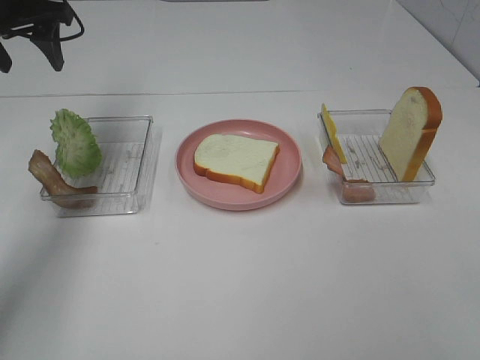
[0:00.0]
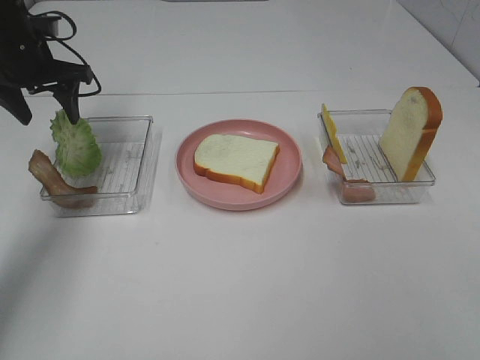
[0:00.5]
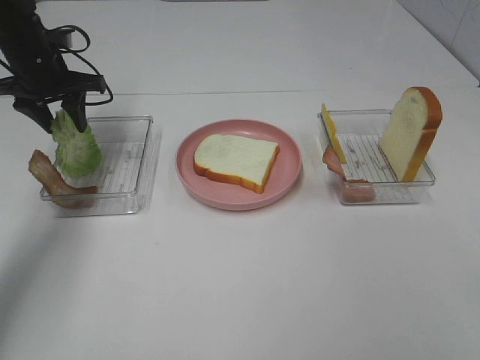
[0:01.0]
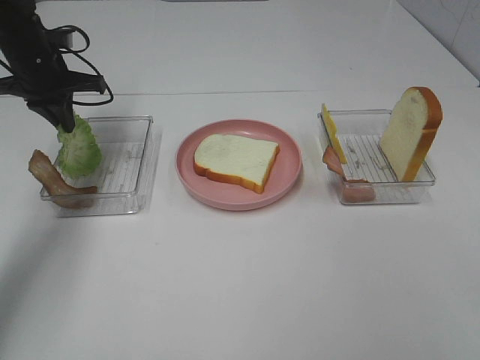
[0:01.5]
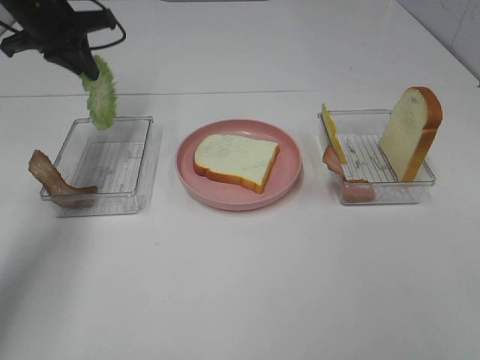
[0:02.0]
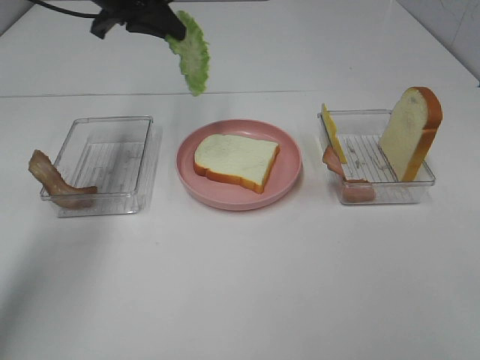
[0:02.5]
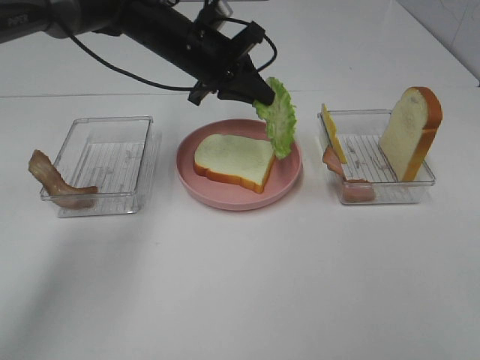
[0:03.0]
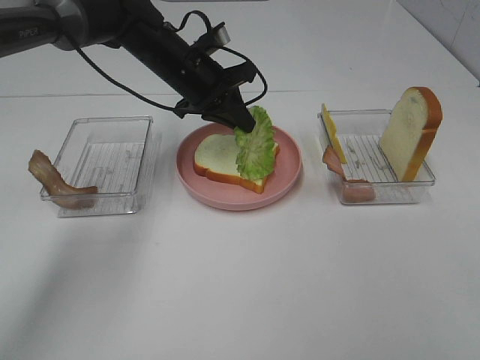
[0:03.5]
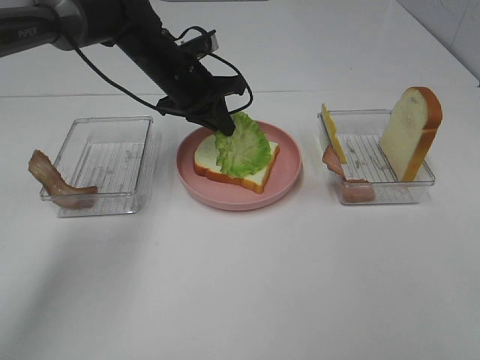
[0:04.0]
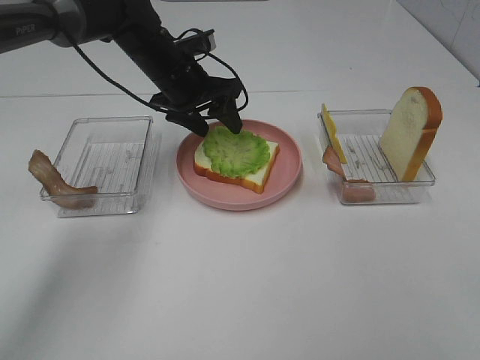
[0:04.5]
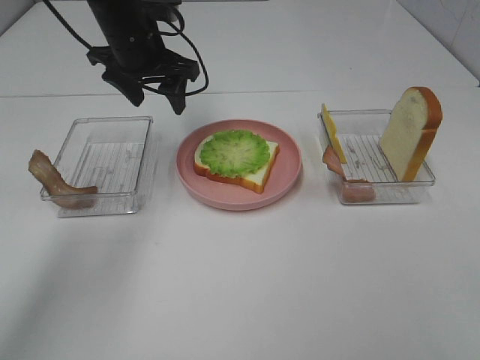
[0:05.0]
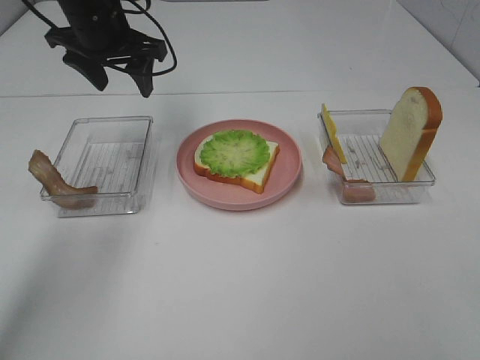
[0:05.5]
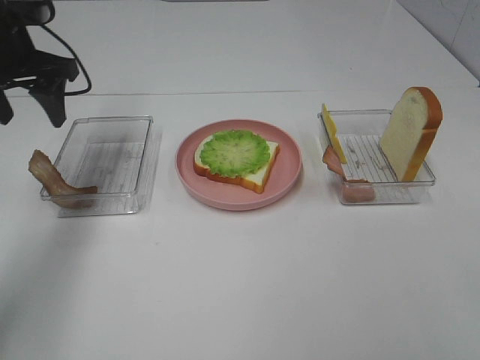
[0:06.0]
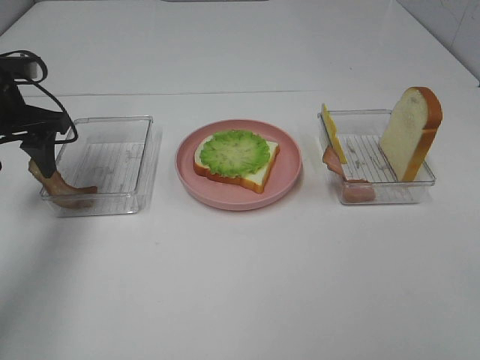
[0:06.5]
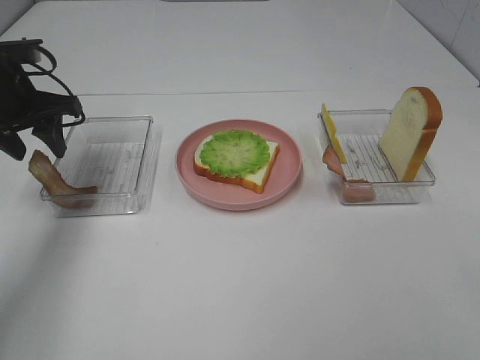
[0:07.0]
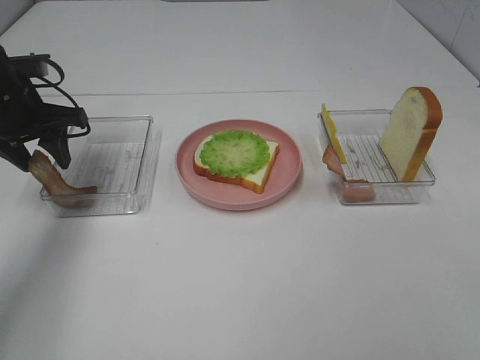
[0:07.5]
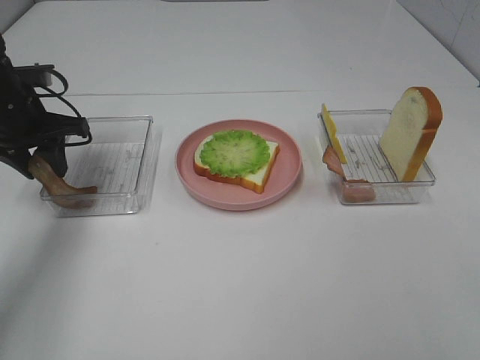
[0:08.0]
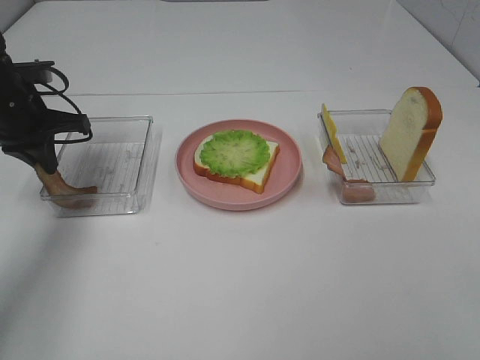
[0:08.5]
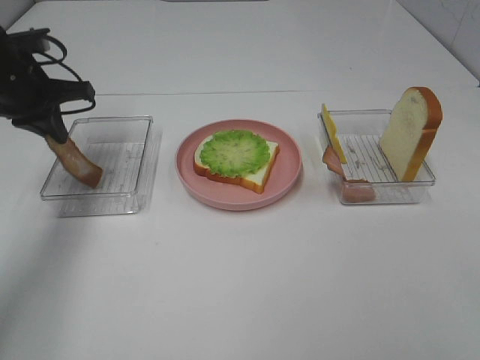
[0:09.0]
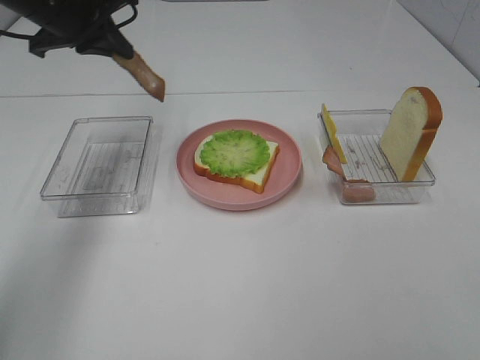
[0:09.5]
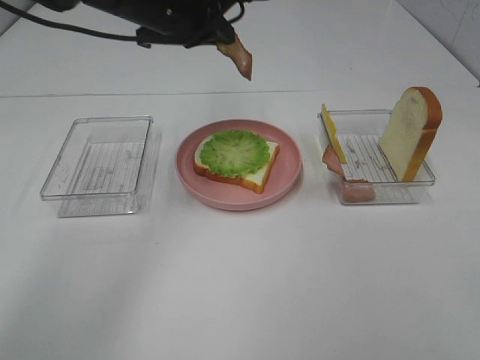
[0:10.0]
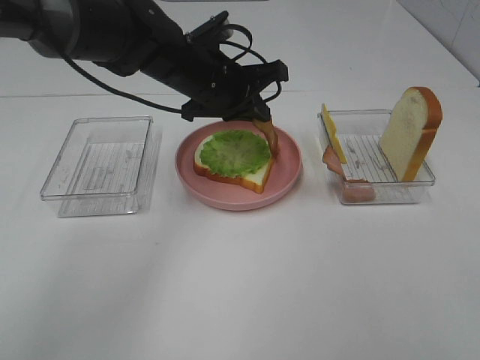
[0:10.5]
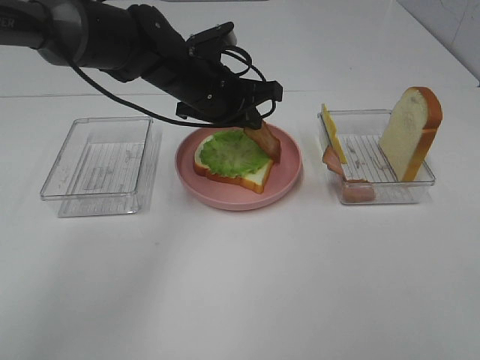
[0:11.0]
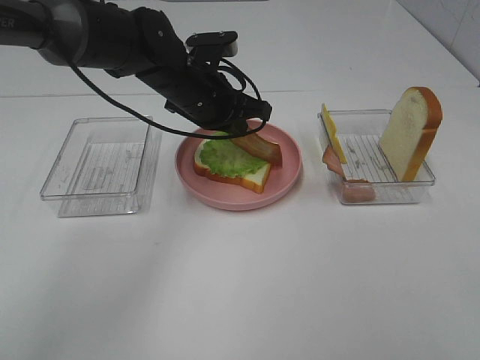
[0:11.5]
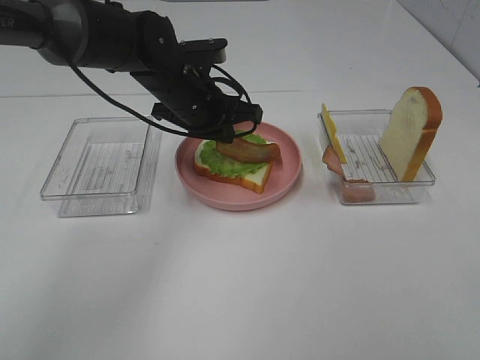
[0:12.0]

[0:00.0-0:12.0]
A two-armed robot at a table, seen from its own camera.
Task of the whole recording: Make sandwiches.
Step, 0:01.5 to 0:04.5: Left hand:place the lettuce slice on the bread slice.
Step, 0:05.0 to 0:08.5: Left hand:grab the bacon.
0:00.0 to 0:02.0: The left gripper goes downward and returns, some 10 cm each way, and closes.
0:02.0 to 0:04.0: The left gripper goes about 20 cm to the right and downward.
0:04.0 to 0:06.0: The left gripper travels to the left and upward by about 20 cm, and opens up.
0:06.0 to 0:08.0: The left gripper moves downward, approximately 10 cm.
0:08.0 to 0:10.0: The left gripper heads to the right and upward, covering approximately 20 cm, and closes up.
0:10.0 to 0:12.0: The left gripper travels downward by roughly 10 cm.

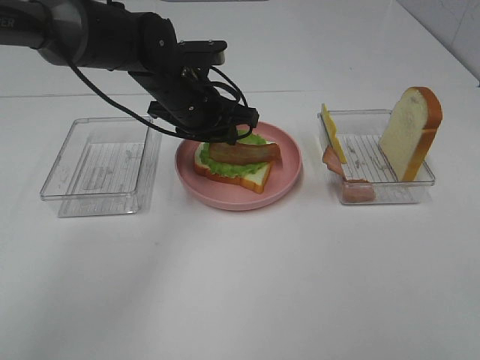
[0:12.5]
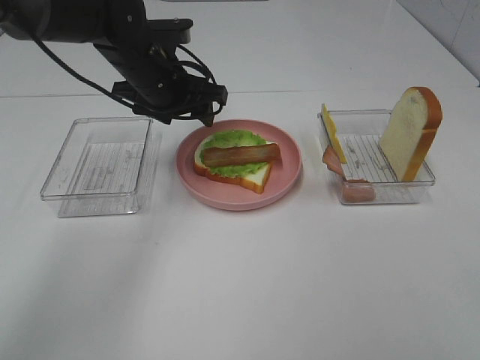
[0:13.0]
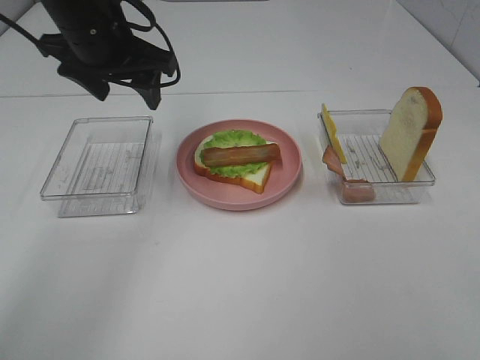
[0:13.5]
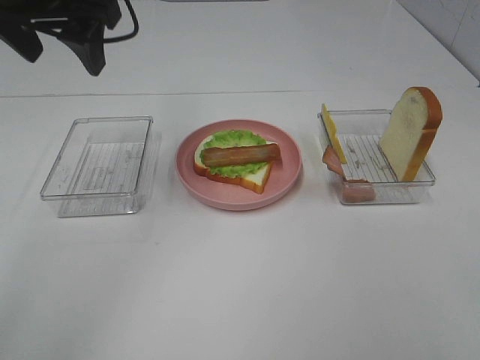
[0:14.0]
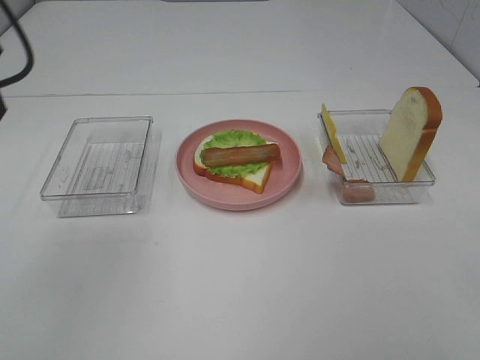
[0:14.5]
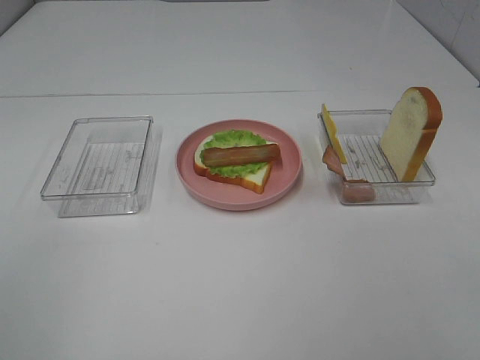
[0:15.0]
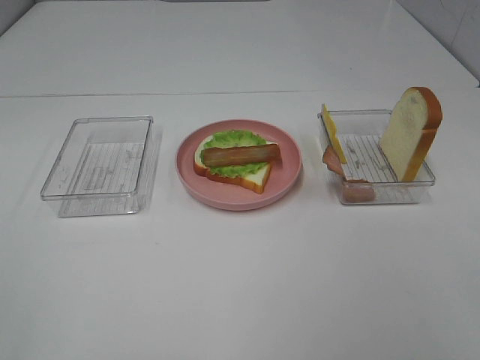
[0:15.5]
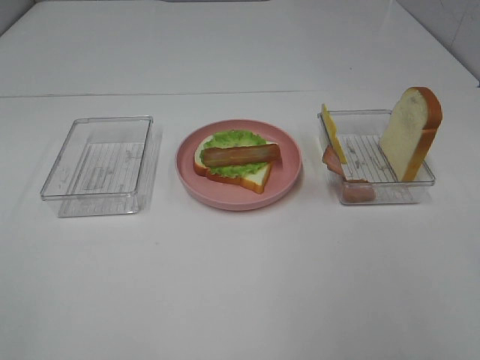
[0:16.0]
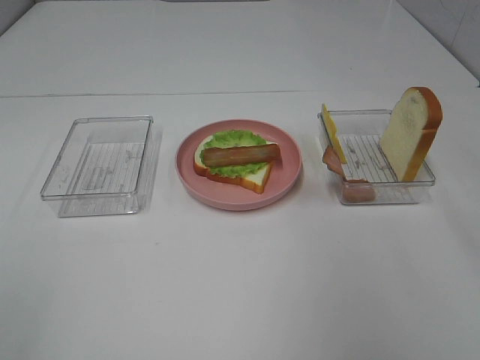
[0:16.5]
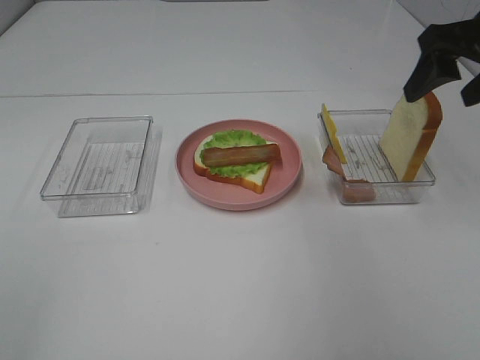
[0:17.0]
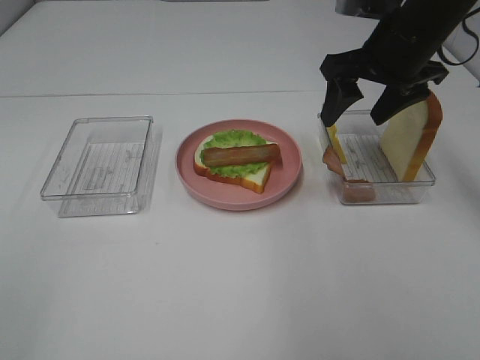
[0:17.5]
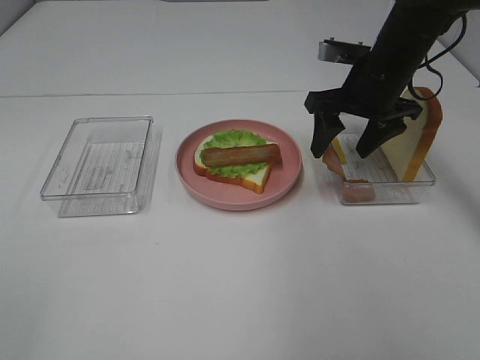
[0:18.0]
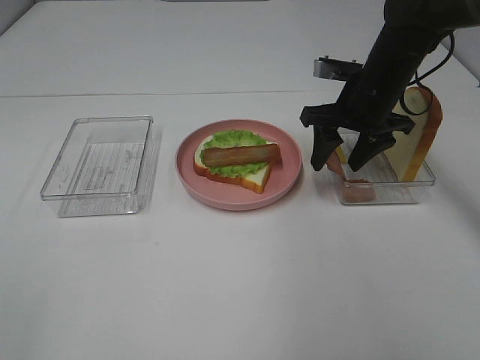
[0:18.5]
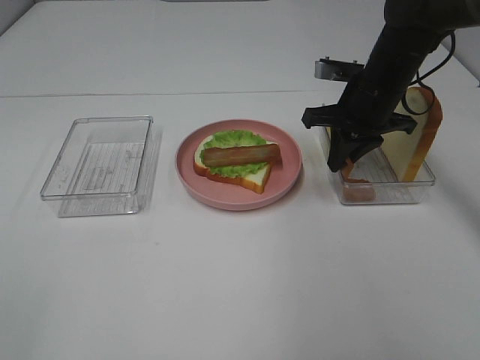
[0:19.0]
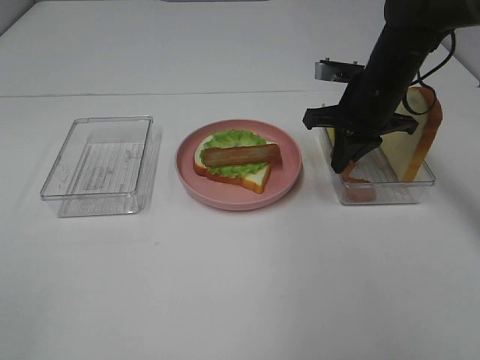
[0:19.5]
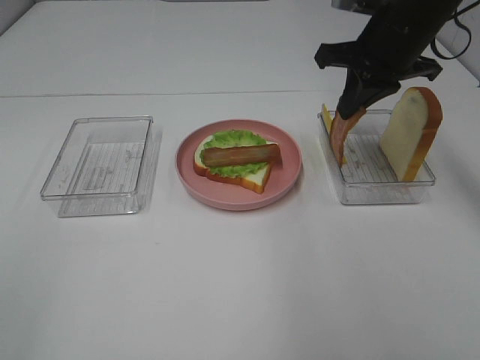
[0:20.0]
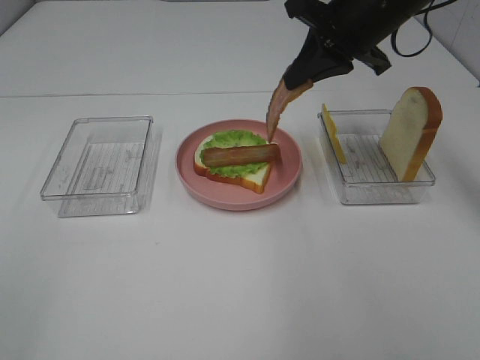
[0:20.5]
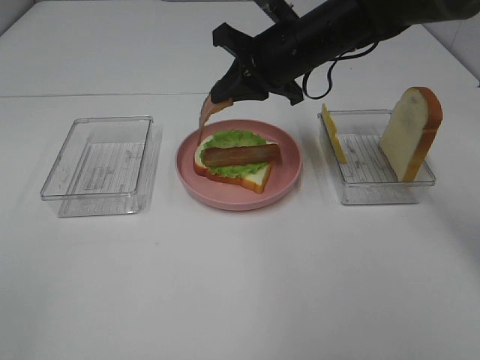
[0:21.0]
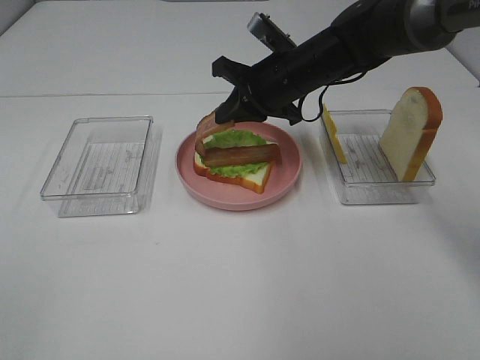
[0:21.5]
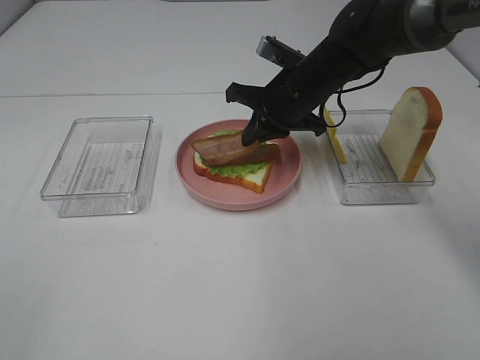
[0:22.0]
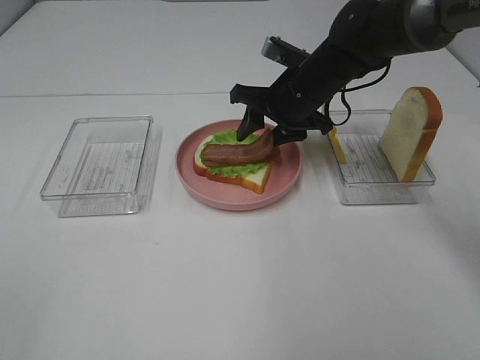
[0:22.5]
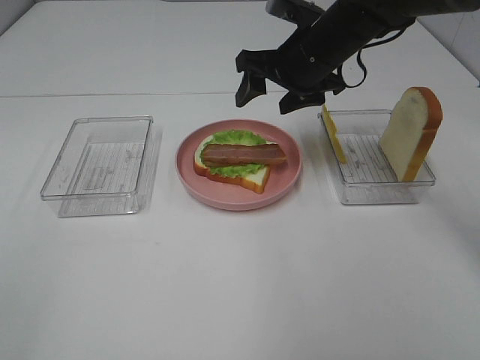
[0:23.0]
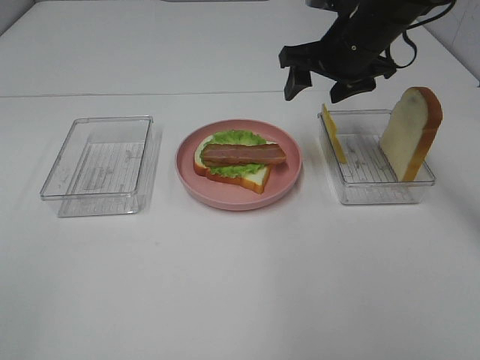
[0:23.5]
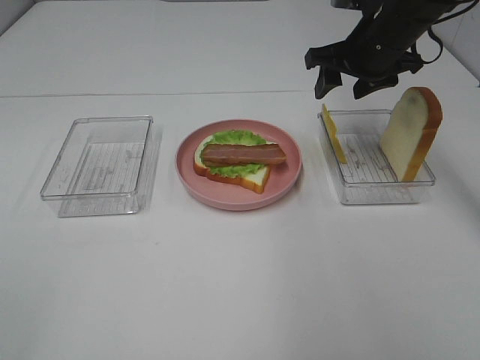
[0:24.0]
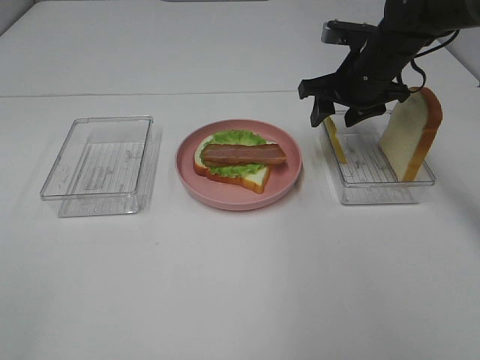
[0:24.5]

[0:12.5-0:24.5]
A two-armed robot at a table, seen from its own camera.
Task of the whole recording: Make sandwiches.
Step, 0:13.0 to 0:19.0: Right hand:grab the bacon.
Step, 0:19.5 to 0:23.0: Right hand:place bacon on bacon.
0:12.5 to 0:14.5: The left gripper moves upward, backward and to the left, some 35 cm, and opens its fingers.
0:16.5 to 0:18.5: The right gripper shifts roughly 30 cm forward, downward and to the left.
0:18.5 to 0:20.5: The right gripper goes about 10 cm upward, and closes.
0:20.5 to 0:22.5: The right gripper travels downward and to the left by about 15 cm, and opens.
0:22.5 to 0:24.5: The right gripper travels to the right by roughly 10 cm.

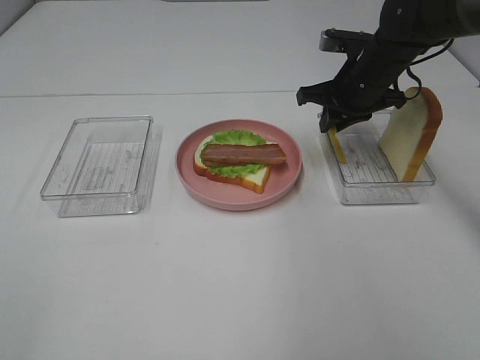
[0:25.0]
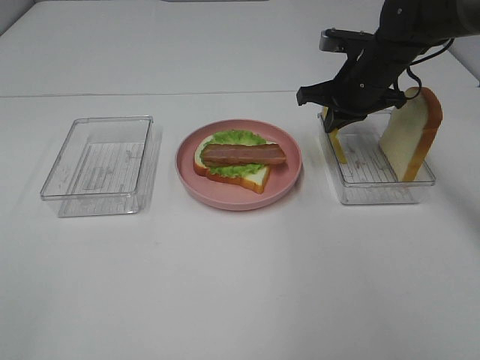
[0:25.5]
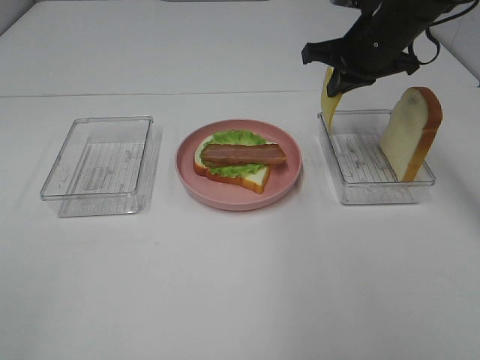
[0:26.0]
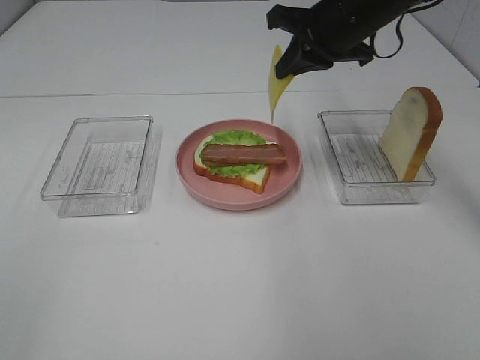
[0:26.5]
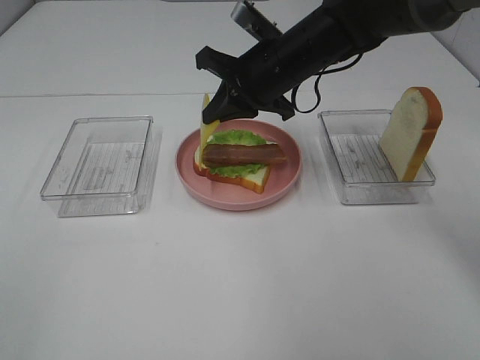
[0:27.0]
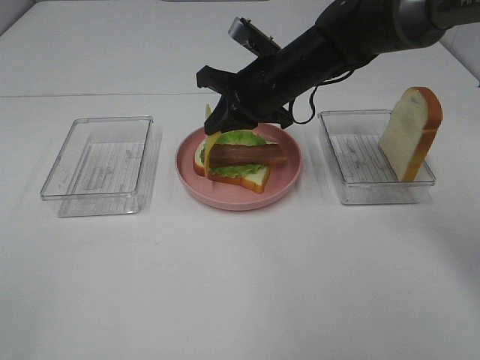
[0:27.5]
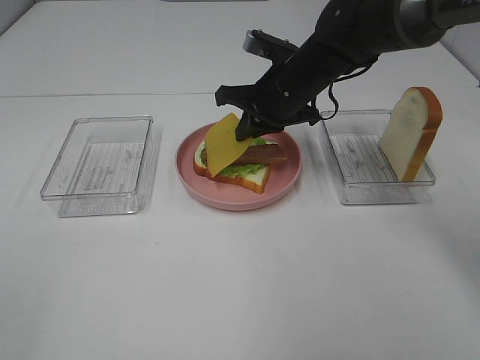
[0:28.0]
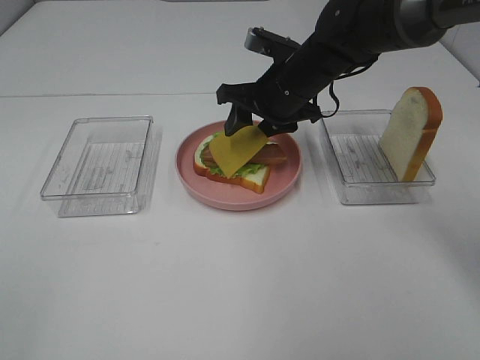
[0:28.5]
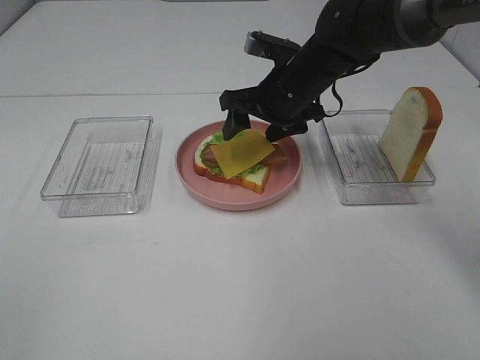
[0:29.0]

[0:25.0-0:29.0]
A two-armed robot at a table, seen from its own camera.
Task of the whole recording: Make sandwiches.
0:25.0 to 0:27.0: The right gripper travels to the left by roughly 10 cm.
0:27.0 to 0:29.0: The right gripper opens up.
